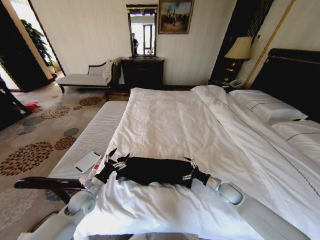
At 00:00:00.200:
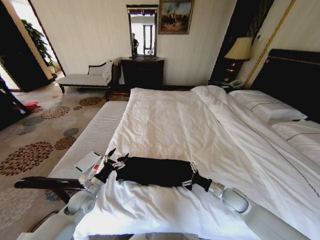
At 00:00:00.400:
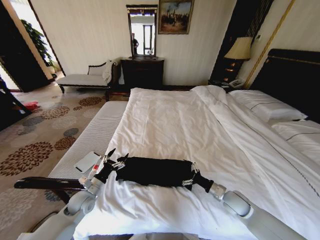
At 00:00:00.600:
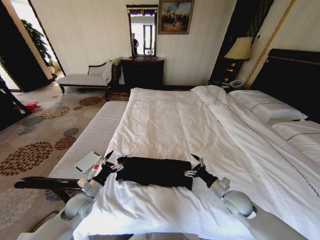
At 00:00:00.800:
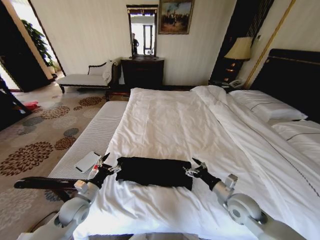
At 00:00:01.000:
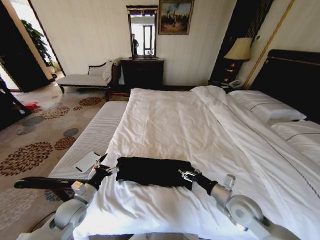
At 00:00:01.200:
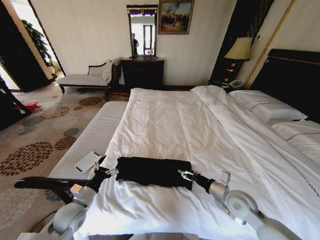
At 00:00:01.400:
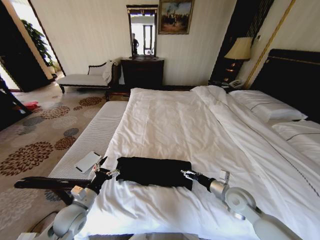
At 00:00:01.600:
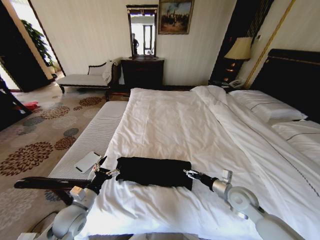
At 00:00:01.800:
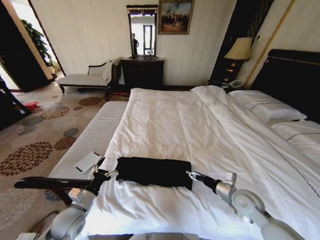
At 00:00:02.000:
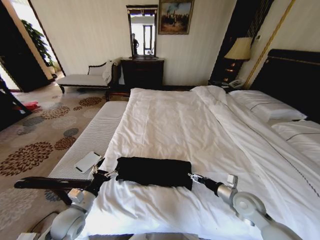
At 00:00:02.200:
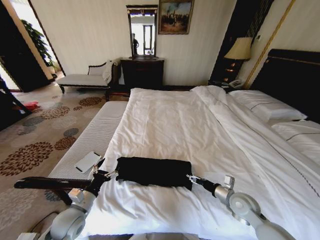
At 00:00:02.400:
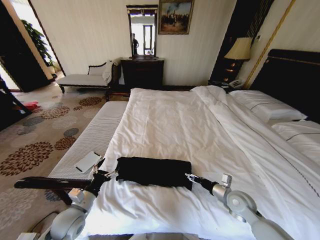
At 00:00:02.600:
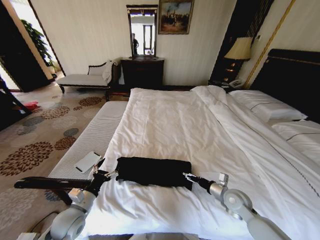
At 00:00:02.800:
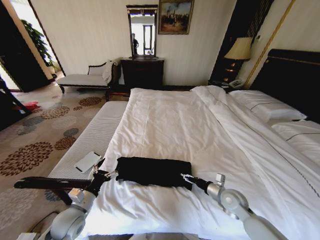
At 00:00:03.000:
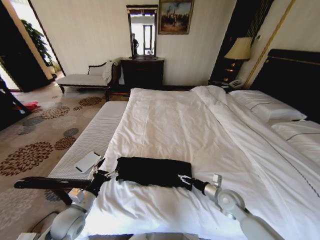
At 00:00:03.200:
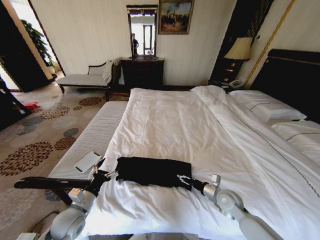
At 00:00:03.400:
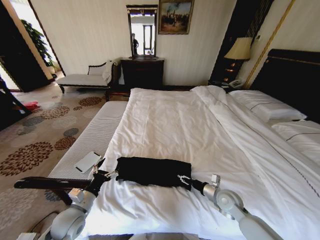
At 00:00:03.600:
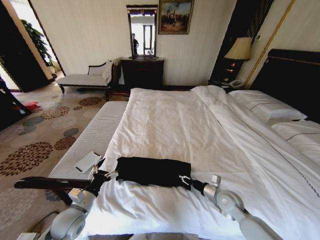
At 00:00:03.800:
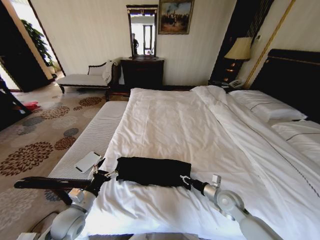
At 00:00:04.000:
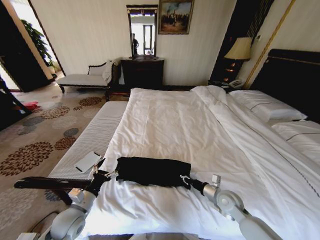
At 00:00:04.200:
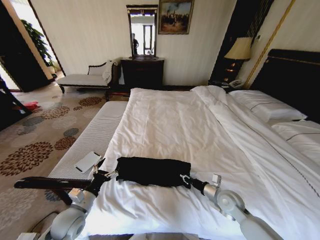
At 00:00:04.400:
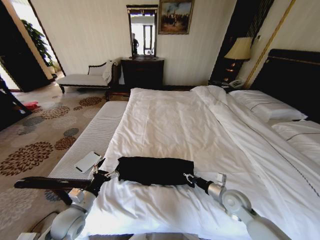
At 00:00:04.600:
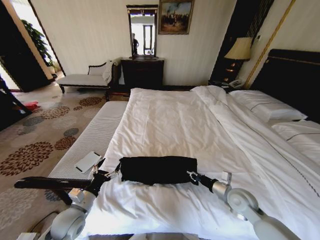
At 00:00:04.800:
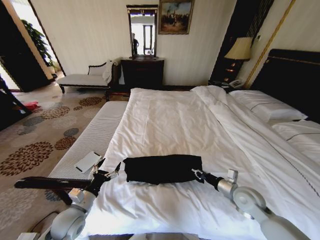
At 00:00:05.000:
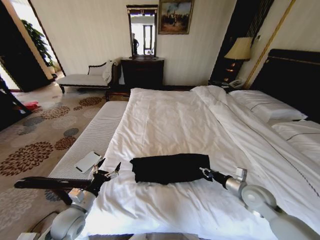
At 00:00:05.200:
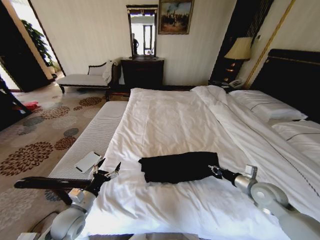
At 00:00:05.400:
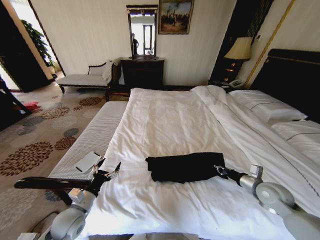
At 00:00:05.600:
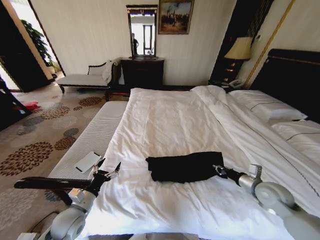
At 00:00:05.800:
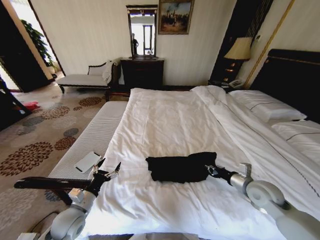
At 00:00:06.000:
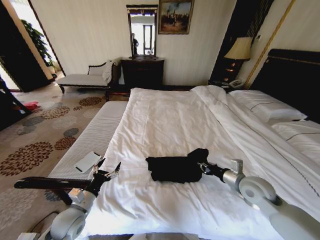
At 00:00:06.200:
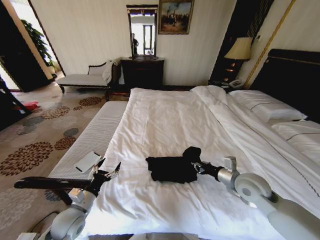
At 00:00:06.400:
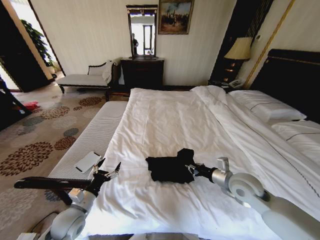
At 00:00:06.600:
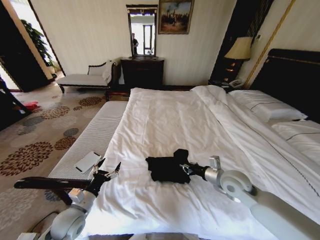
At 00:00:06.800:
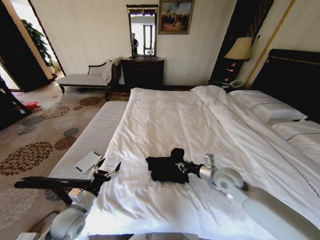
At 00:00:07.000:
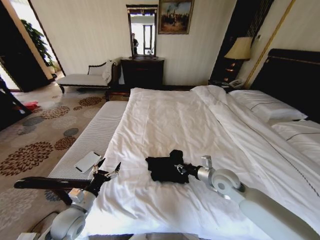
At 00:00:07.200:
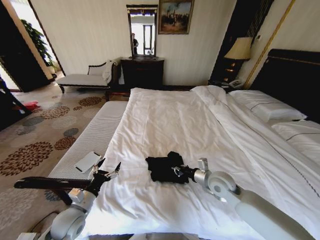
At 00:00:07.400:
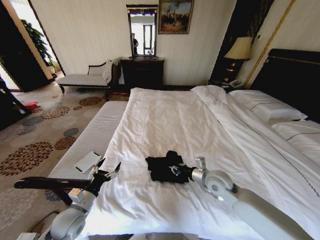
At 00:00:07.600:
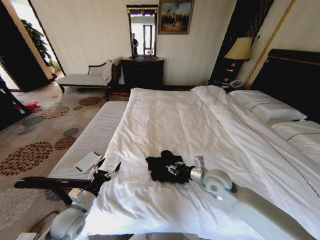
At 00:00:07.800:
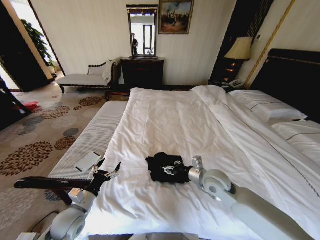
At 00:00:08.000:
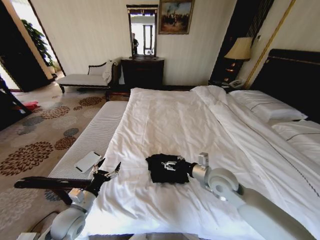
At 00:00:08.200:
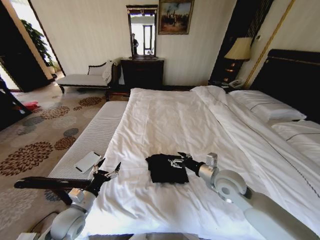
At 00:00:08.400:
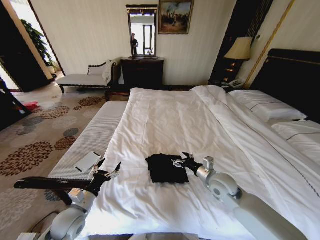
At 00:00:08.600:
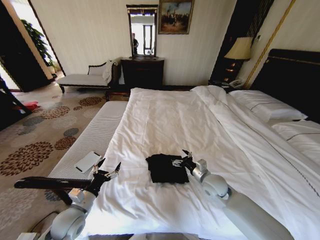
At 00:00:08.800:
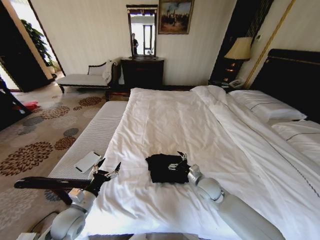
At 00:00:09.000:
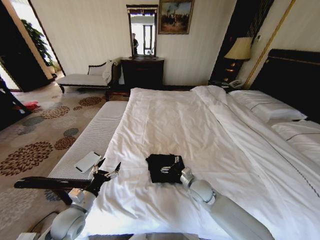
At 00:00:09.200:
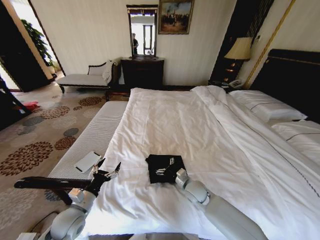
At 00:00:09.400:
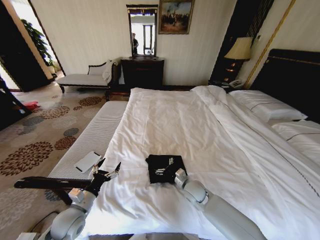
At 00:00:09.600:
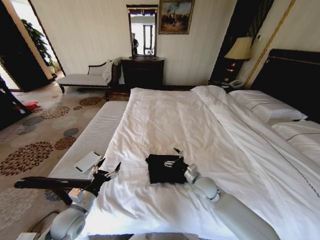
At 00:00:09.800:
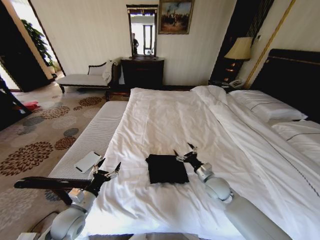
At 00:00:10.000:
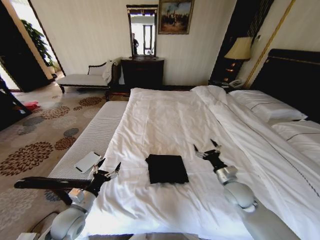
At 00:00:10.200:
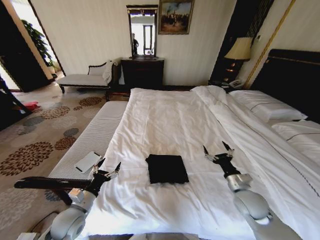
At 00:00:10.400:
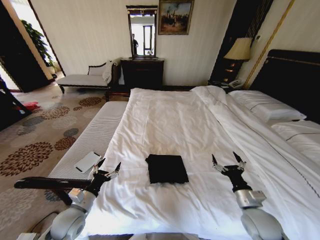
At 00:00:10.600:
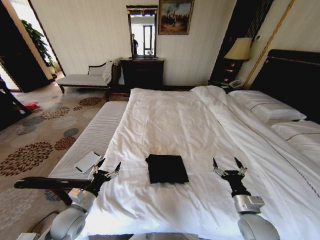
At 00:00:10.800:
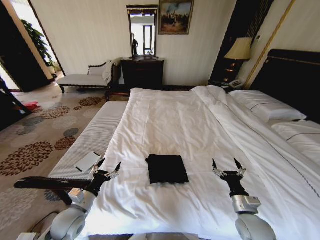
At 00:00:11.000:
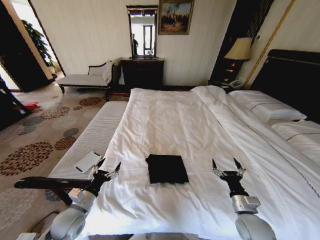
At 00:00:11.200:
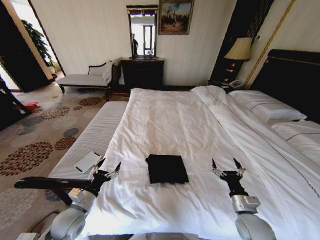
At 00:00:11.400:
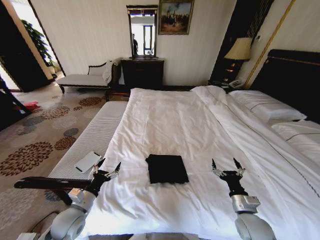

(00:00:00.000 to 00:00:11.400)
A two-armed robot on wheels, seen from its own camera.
Task of the whole recording: Fold the clothes on the bed.
00:00:00.000 - 00:00:01.400: The left gripper heads backward, covering about 5 cm; the right gripper goes approximately 10 cm upward and backward.
00:00:01.400 - 00:00:02.800: The grippers stay close to where they were, moving slightly.
00:00:02.800 - 00:00:04.200: The right gripper closes up.
00:00:04.200 - 00:00:05.600: The right gripper heads to the right and upward, covering some 15 cm.
00:00:05.600 - 00:00:07.200: The right gripper moves to the left, some 20 cm.
00:00:07.200 - 00:00:08.600: The right gripper opens up.
00:00:08.600 - 00:00:10.000: The right gripper moves to the right, some 5 cm.
00:00:10.000 - 00:00:11.400: The right gripper goes some 10 cm backward.
